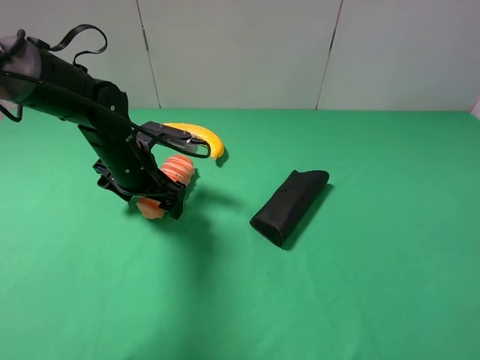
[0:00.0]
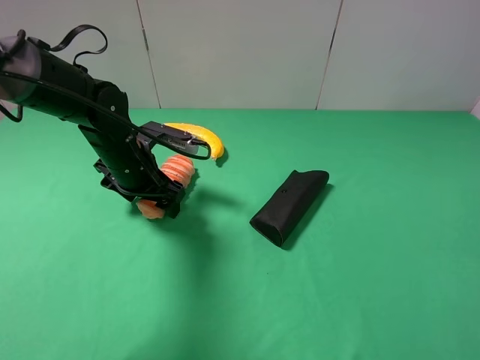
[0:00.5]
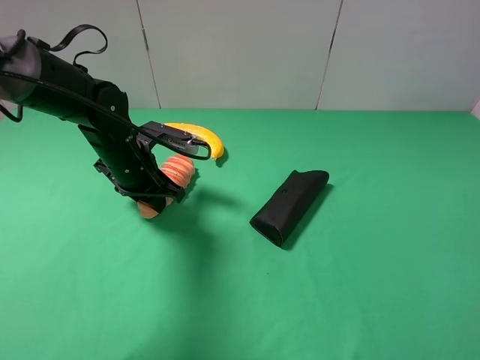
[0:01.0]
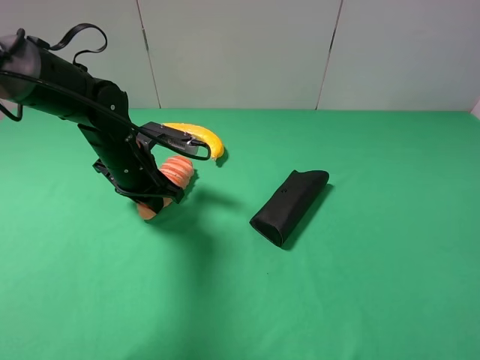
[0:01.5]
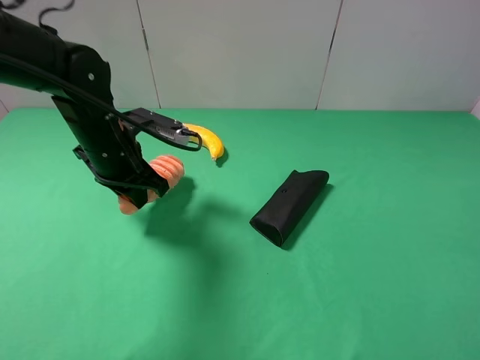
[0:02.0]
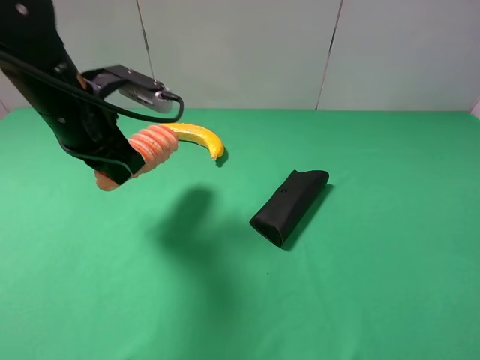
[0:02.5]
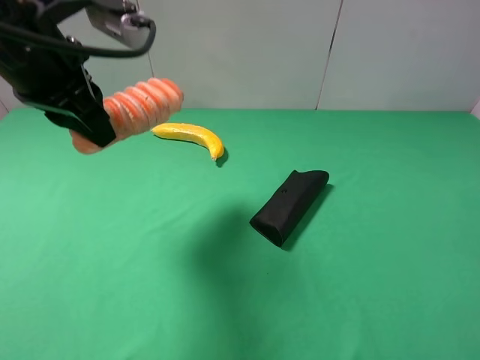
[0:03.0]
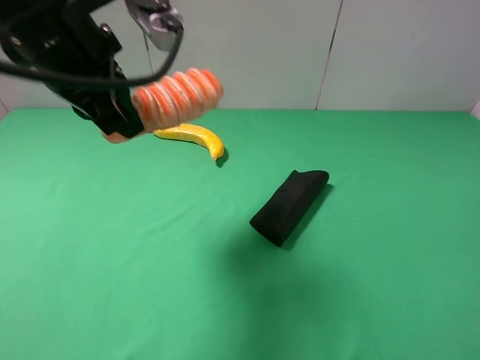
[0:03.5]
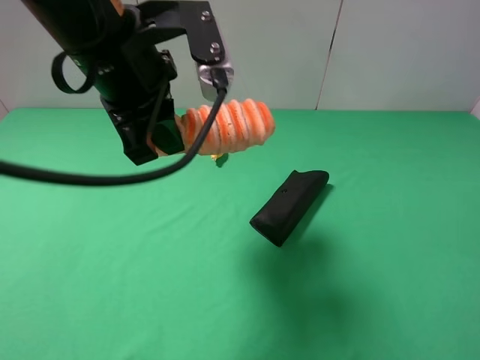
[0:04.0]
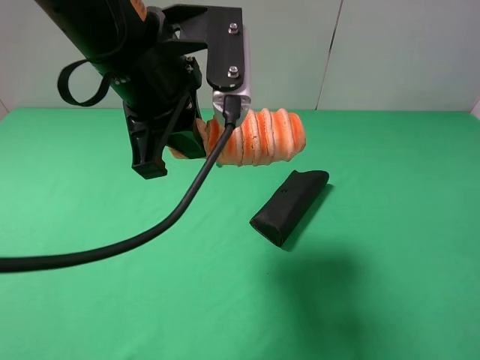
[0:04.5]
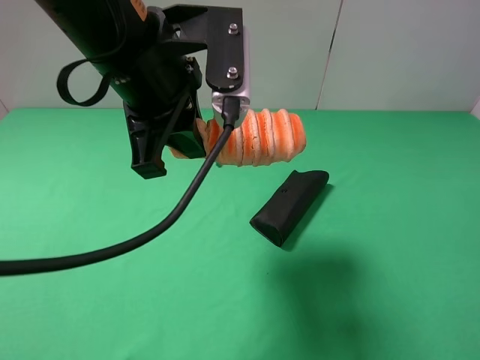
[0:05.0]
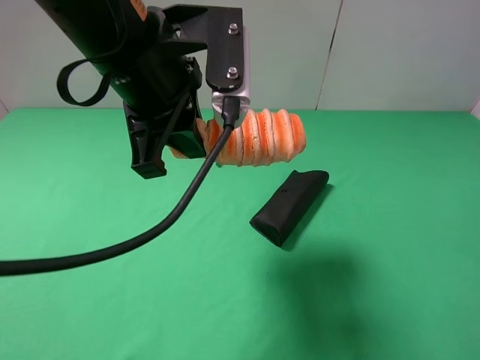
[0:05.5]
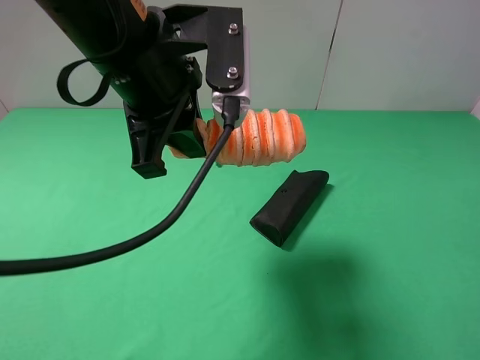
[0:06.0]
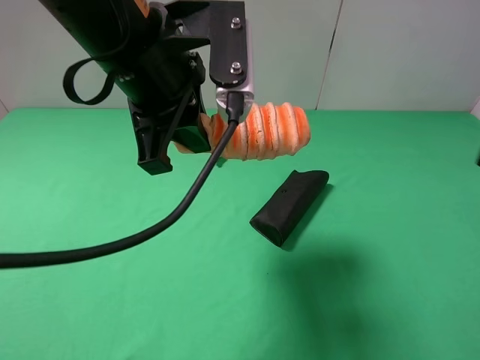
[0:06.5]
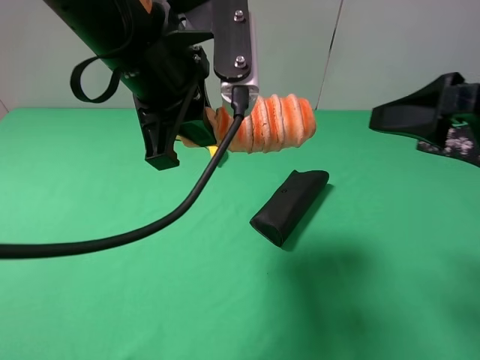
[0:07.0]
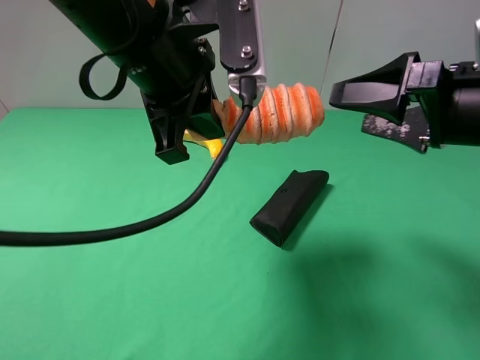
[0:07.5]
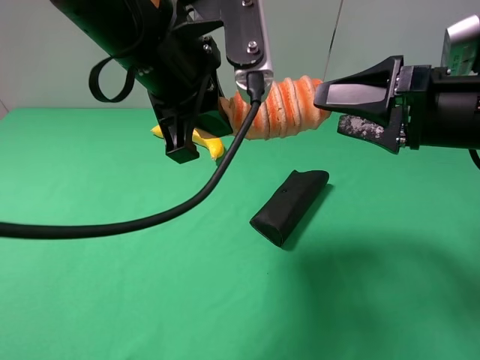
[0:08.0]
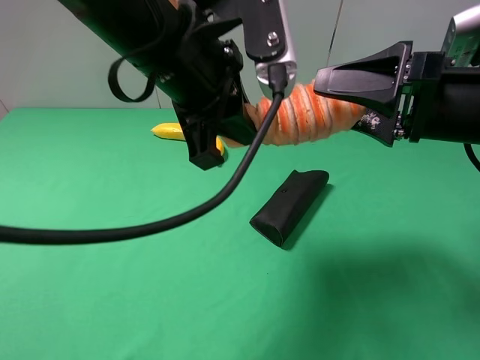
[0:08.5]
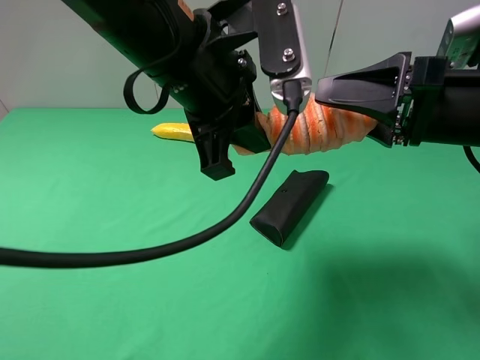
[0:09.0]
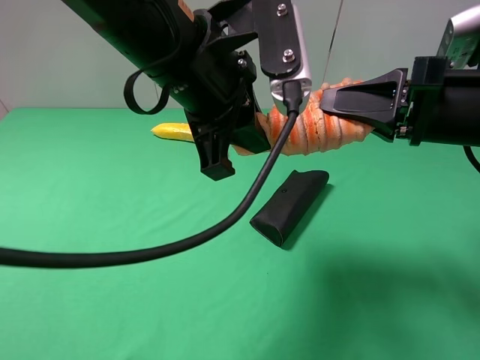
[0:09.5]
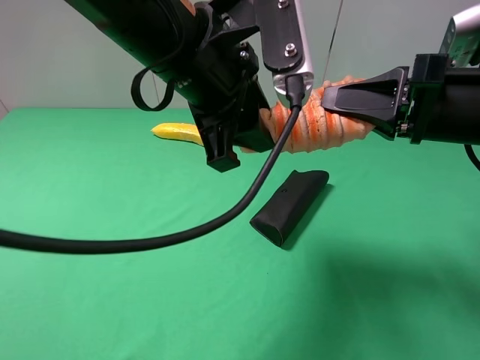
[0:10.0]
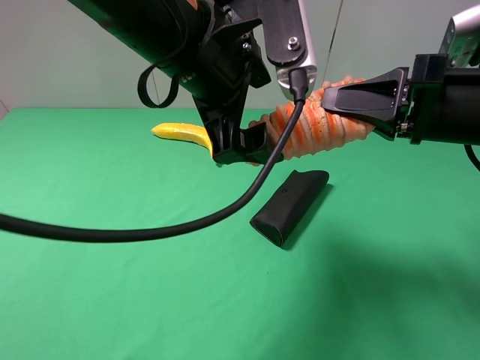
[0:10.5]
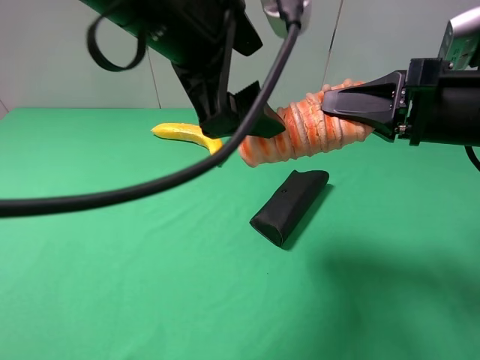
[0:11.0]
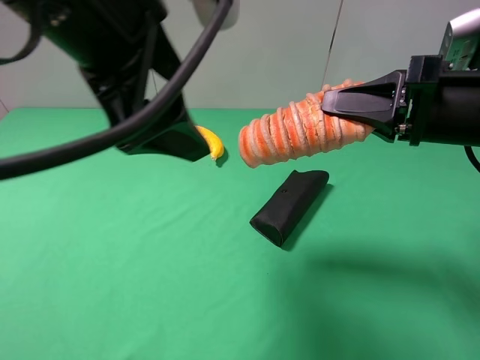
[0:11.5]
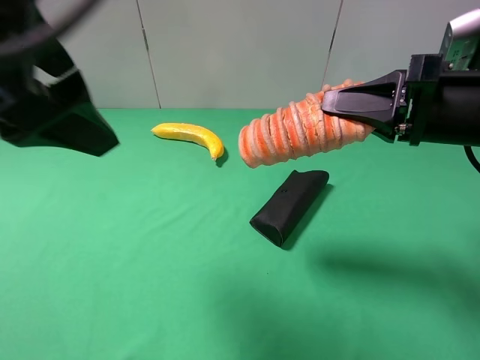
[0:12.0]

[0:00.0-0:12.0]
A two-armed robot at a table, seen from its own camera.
Task of the whole recording: use the left gripper to pick up the item and transfer it from the left gripper to the right gripper.
Step, 0:01.5 to 0:10.0: Pass the long bread to the right gripper.
0:00.0 to 0:02.0: The left gripper closes up.
0:02.0 to 0:04.0: The left gripper shifts some 15 cm upward.
0:04.0 to 0:06.0: The grippers move only a little.
0:06.0 to 0:08.0: The right gripper moves forward, some 20 cm.
0:08.0 to 0:10.0: The right gripper closes.
0:10.0 to 0:12.0: The left gripper moves to the left, upward and backward, about 15 cm, and opens.

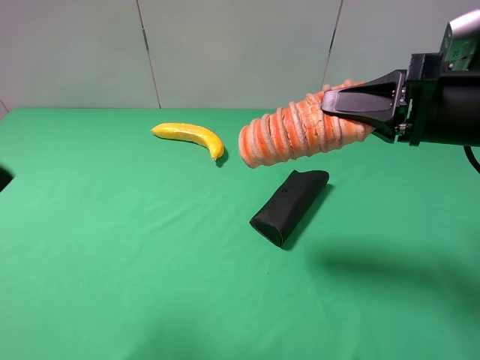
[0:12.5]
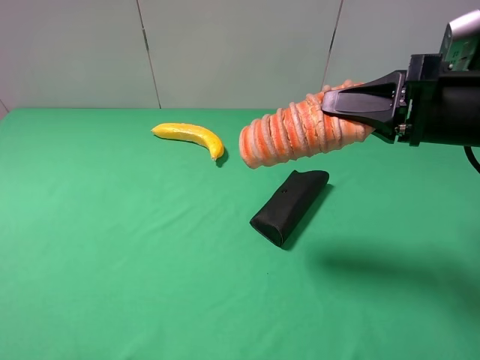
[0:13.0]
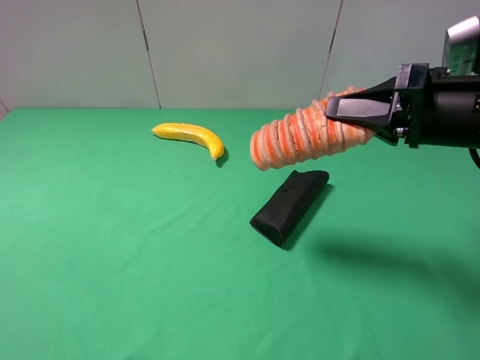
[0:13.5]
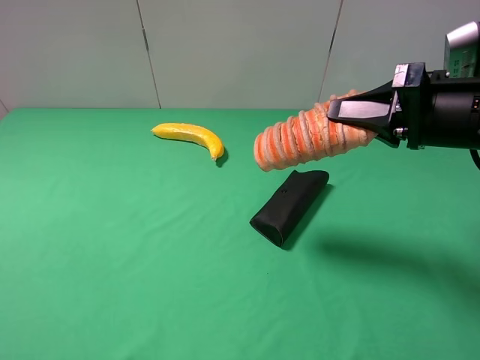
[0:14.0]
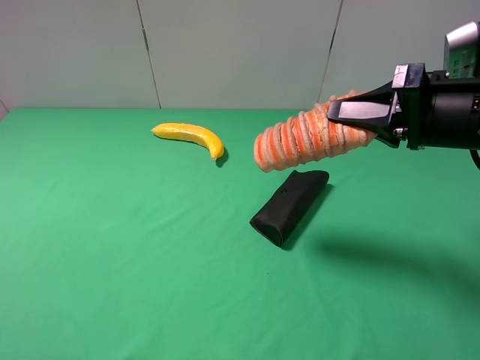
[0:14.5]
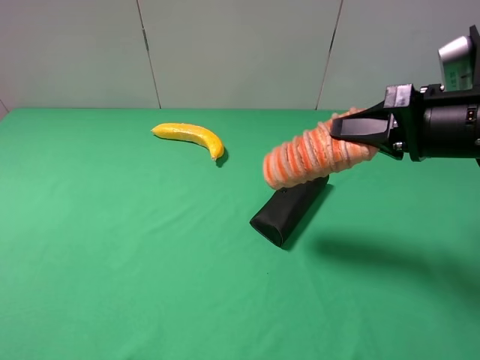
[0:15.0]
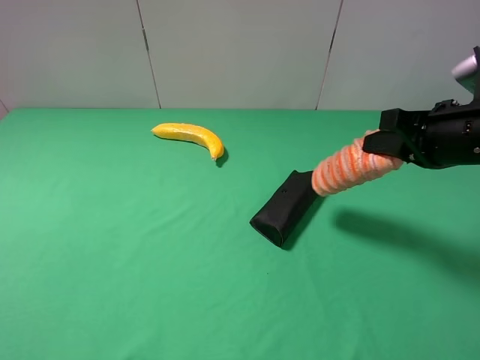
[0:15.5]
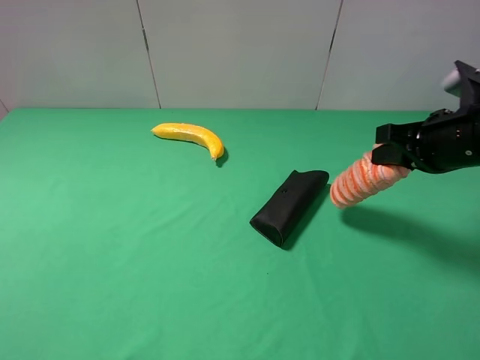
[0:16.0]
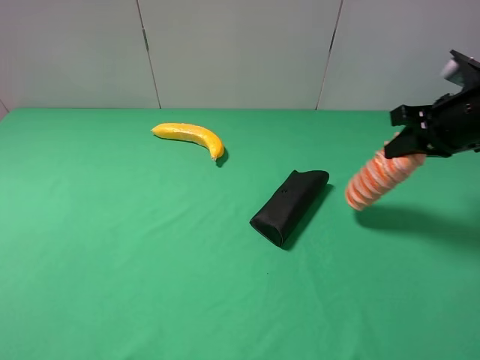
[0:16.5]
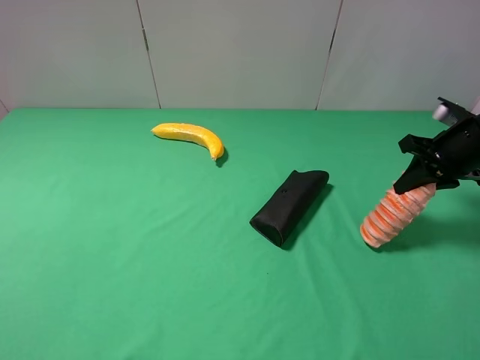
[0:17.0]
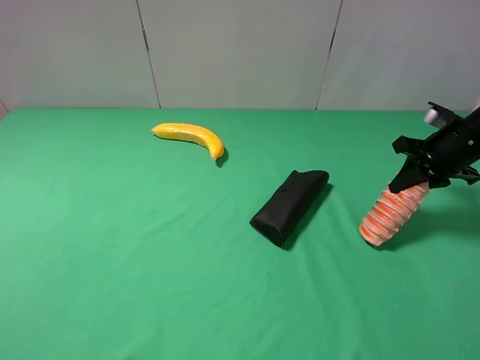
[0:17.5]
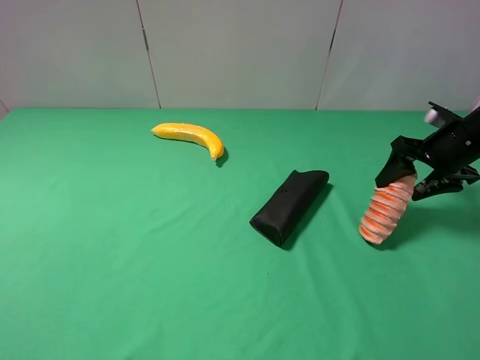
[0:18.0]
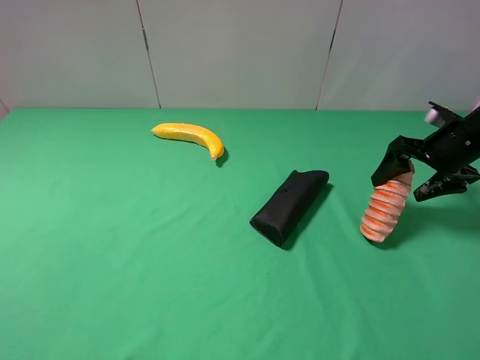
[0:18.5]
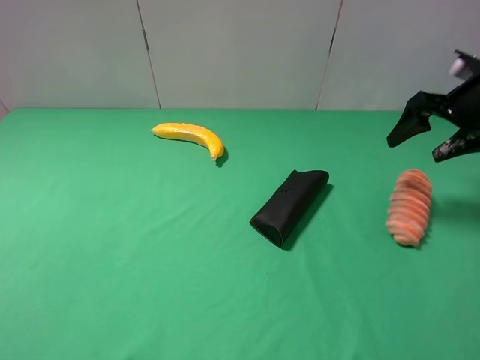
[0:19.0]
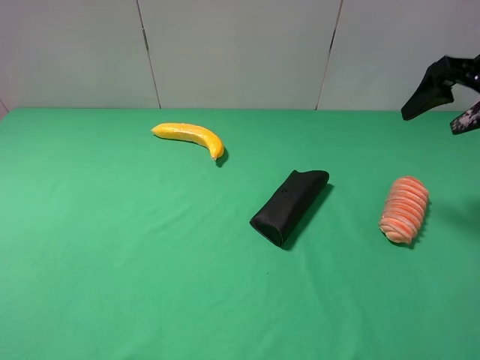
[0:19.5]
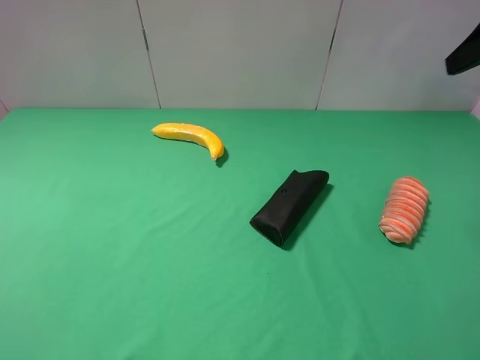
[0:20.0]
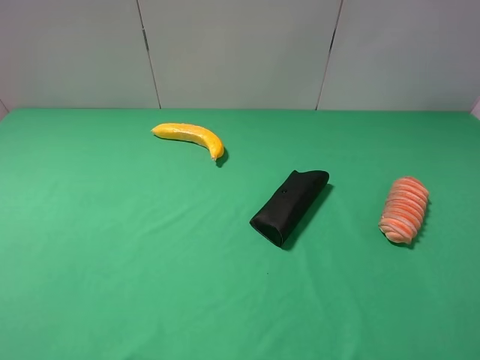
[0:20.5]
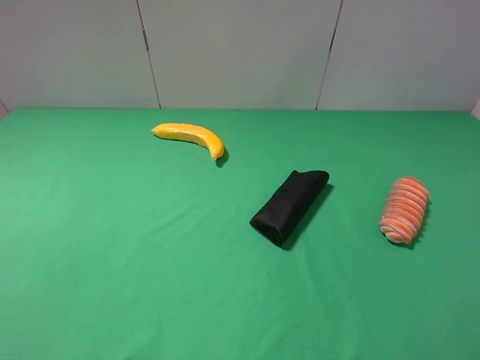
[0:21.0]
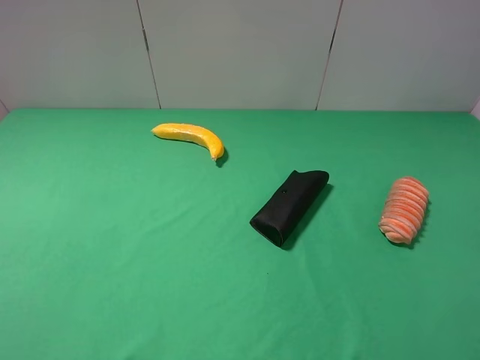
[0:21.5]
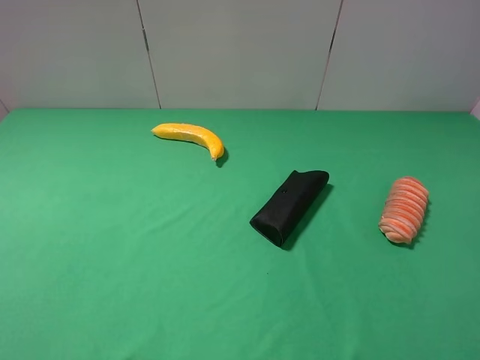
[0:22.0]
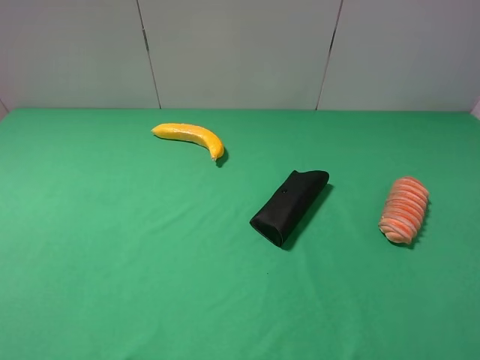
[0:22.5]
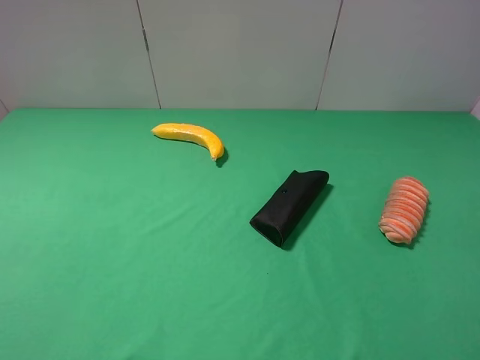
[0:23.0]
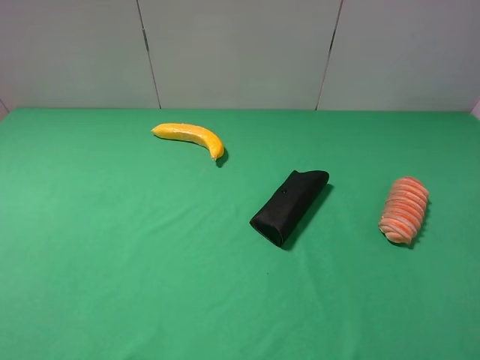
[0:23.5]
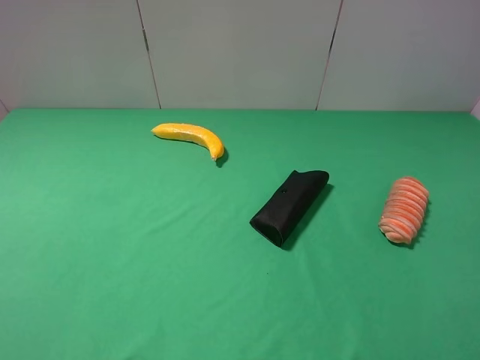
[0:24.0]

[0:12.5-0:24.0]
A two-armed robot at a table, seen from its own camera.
Task of the whole recording: use the left gripper to pick up the item and transfer it from the left gripper to the right gripper.
Step, 0:12.5 to 0:19.0: The right gripper places long bread on the right side of the table.
0:12.5 to 0:14.5: The left gripper heads downward, backward and to the left, covering roughly 20 cm.
0:14.5 to 0:16.5: The right gripper is displaced forward and to the right by approximately 10 cm.
0:16.5 to 0:18.5: The right gripper goes approximately 10 cm downward and to the right, and opens its fingers.
0:18.5 to 0:20.0: The right gripper goes roughly 20 cm upward.
